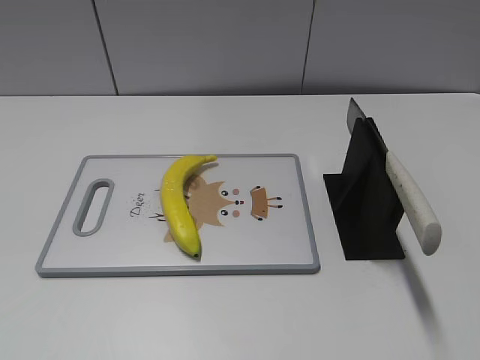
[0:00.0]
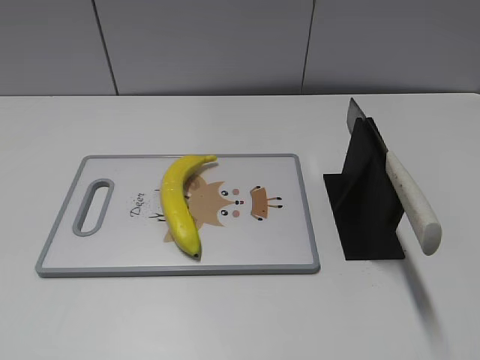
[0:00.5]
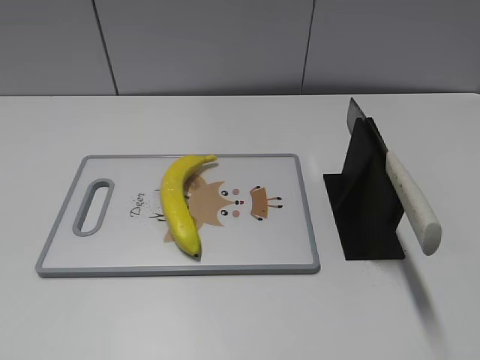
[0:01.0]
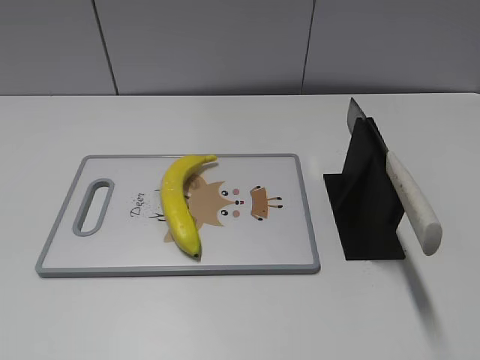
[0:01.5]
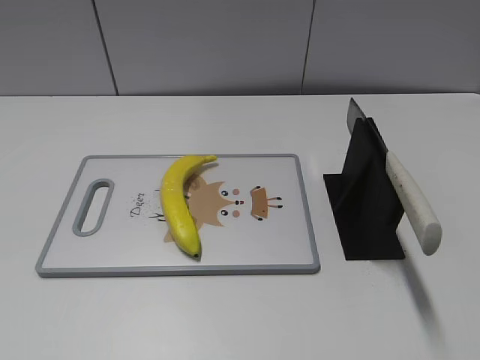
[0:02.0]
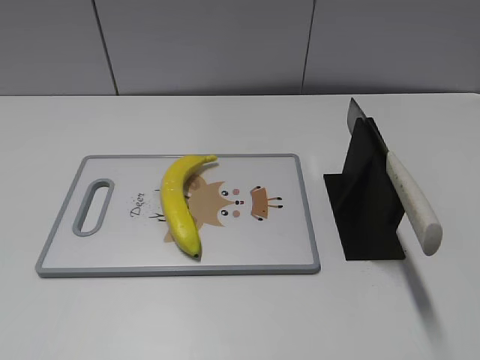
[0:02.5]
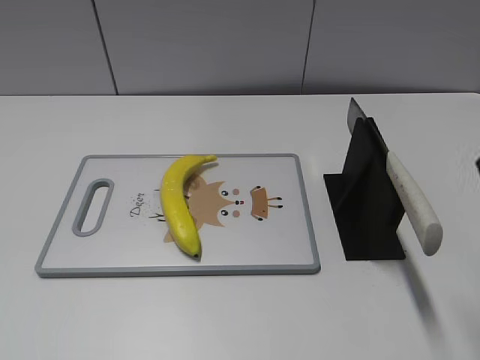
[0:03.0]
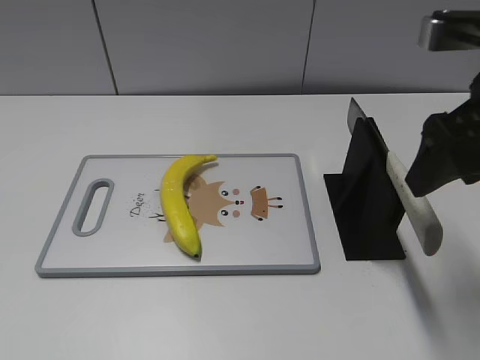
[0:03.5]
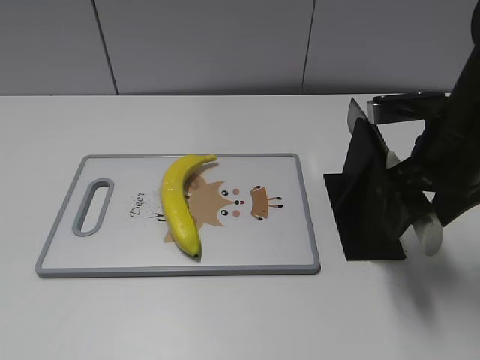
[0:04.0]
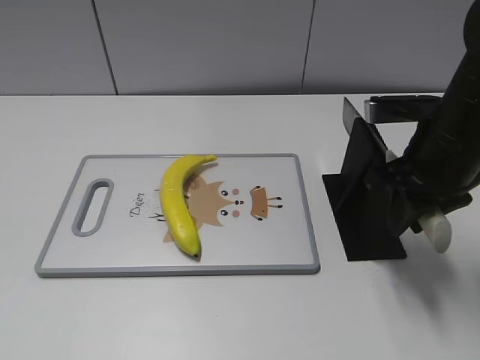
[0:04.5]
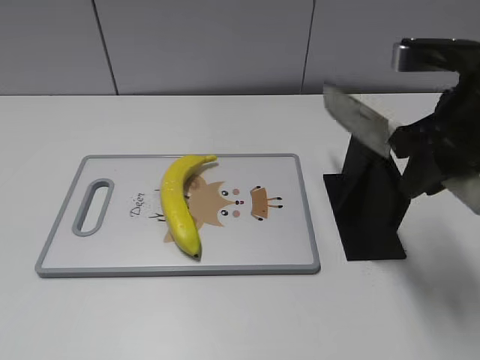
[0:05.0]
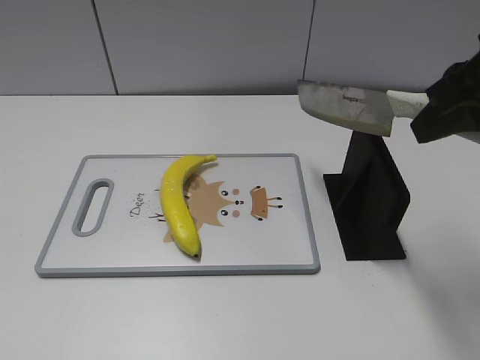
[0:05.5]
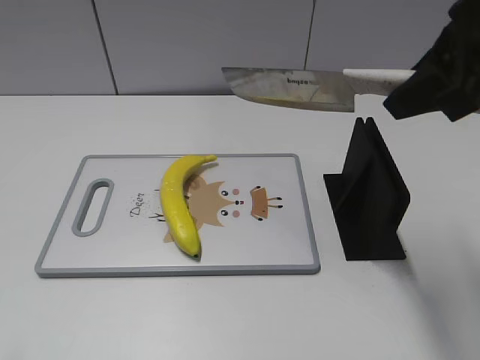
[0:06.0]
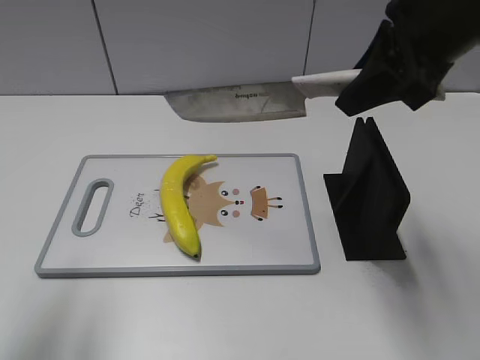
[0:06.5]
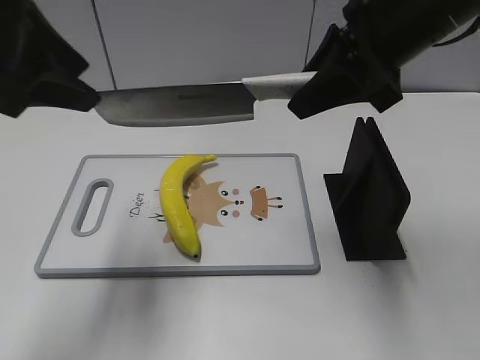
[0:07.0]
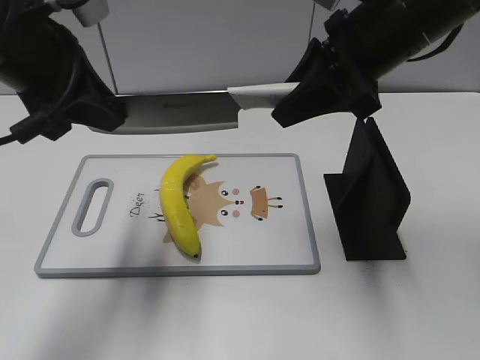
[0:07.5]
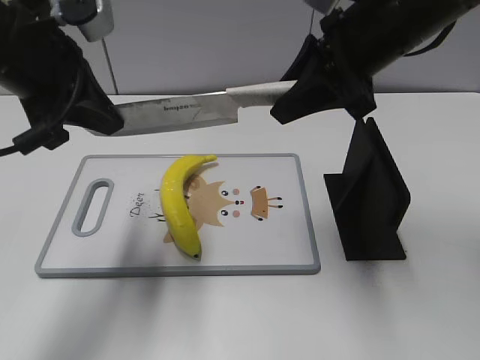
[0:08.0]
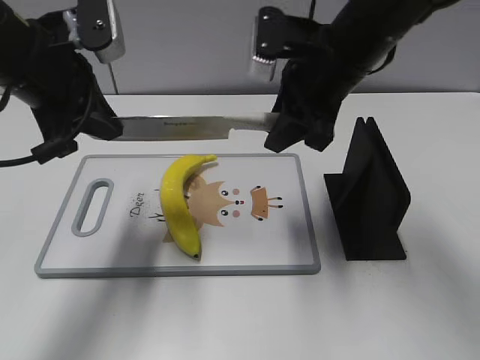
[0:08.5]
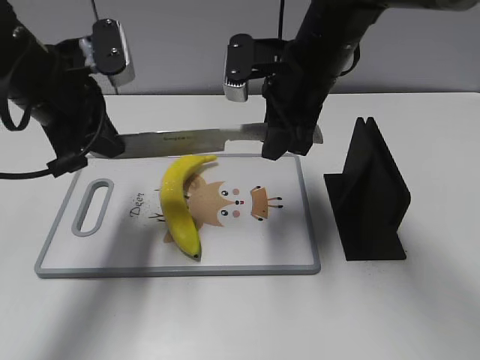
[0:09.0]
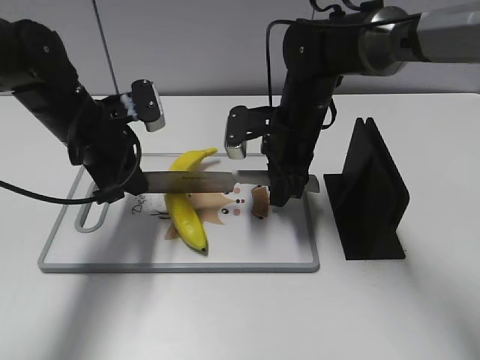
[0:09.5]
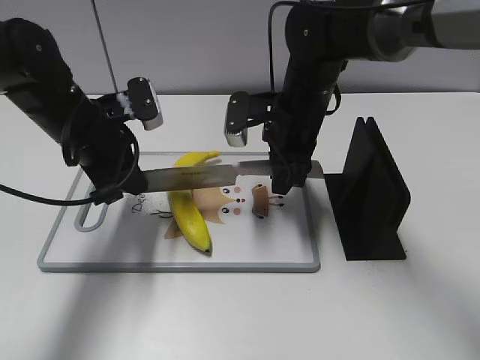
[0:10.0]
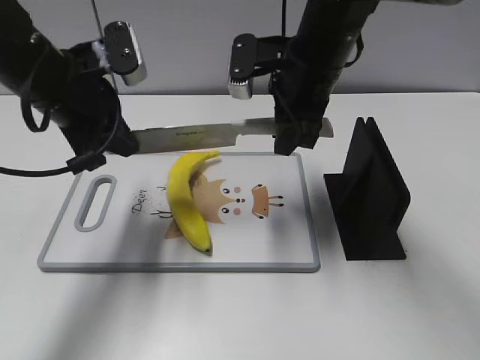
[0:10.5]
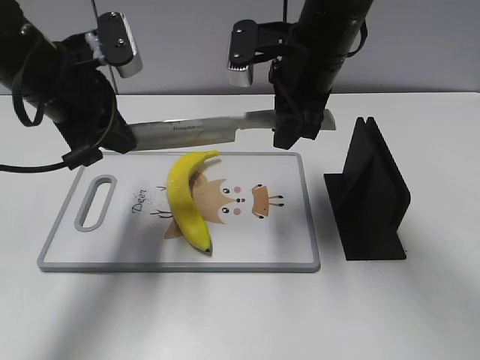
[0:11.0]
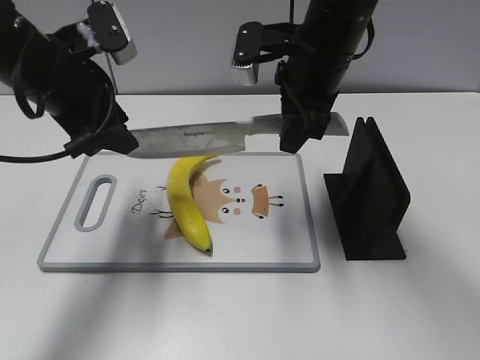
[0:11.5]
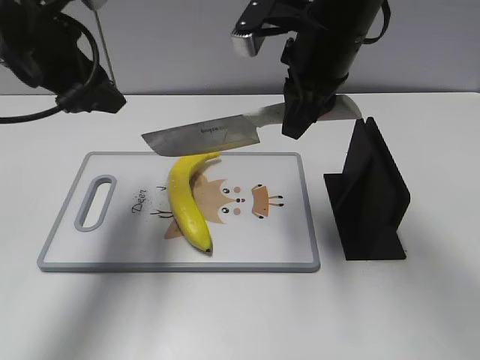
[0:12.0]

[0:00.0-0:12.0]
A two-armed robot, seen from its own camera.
Task of the whole recording: cut plastic banana.
Step, 0:00.0 to 0:05.5: Grab the knife handle with your right hand.
Step, 0:06.0 to 0:09.0: Hold the blade with your left hand.
Step, 0:09.5 to 0:11.5: Cut the banana with your right hand.
0:02.0 to 0:04.0: The right gripper travels forward and downward by some 25 cm.
0:04.0 to 0:06.0: The right gripper is displaced upward by roughly 15 cm, and closes. Meanwhile the left gripper moves about 5 cm.
0:06.0 to 0:08.0: The left gripper travels forward and to the right by about 30 cm, and closes up; the right gripper goes about 10 cm forward, to the left and downward.
0:08.0 to 0:10.0: The left gripper travels downward and forward by some 15 cm; the right gripper goes approximately 15 cm downward, to the left and forward.
0:10.0 to 0:12.0: Both grippers move upward, about 10 cm. The left gripper opens.

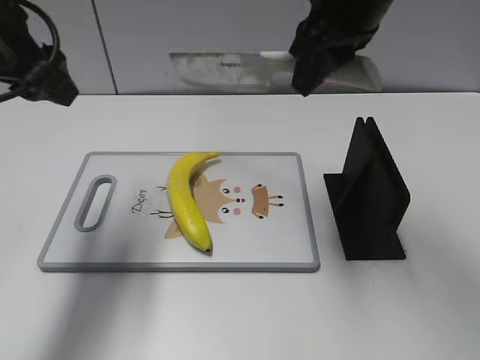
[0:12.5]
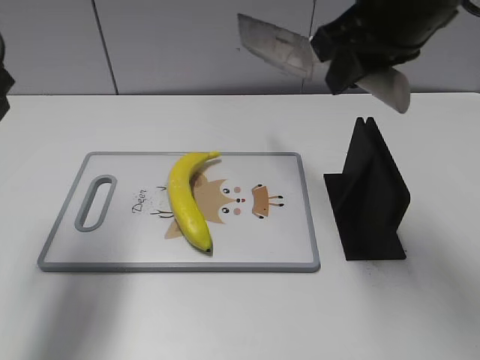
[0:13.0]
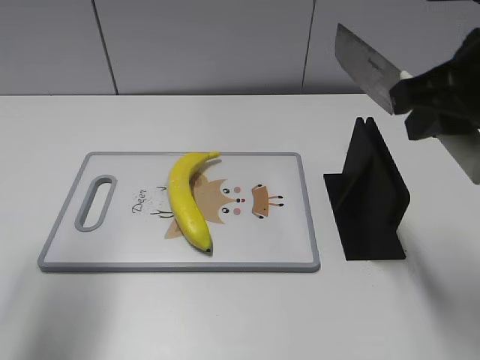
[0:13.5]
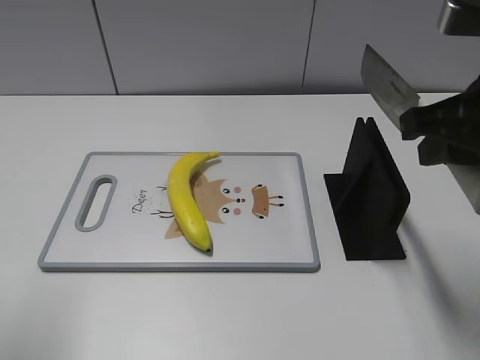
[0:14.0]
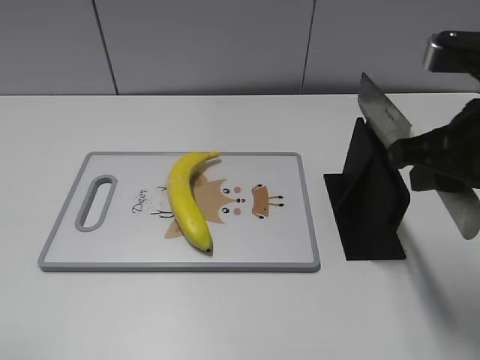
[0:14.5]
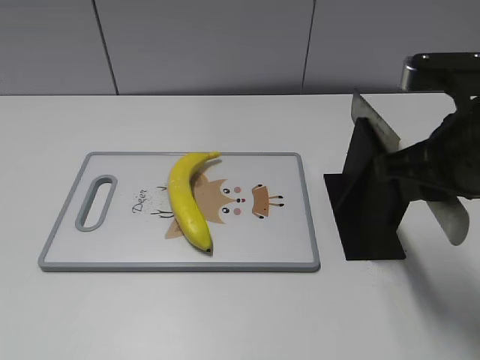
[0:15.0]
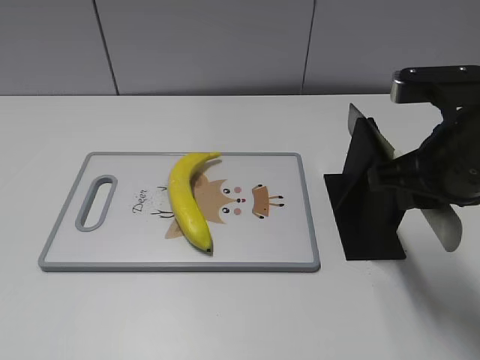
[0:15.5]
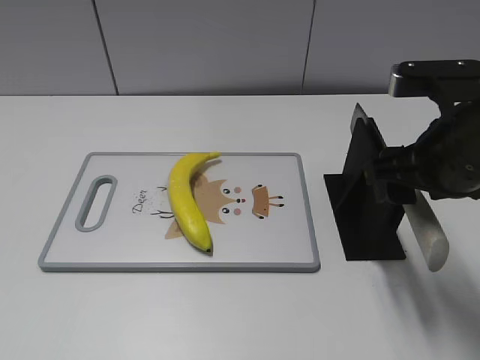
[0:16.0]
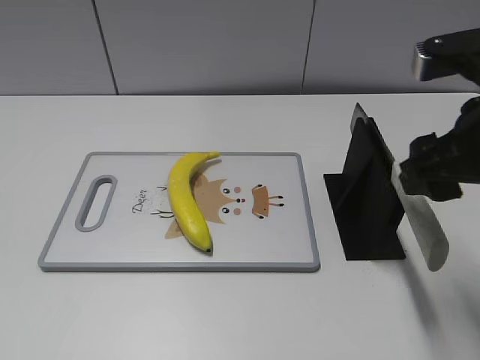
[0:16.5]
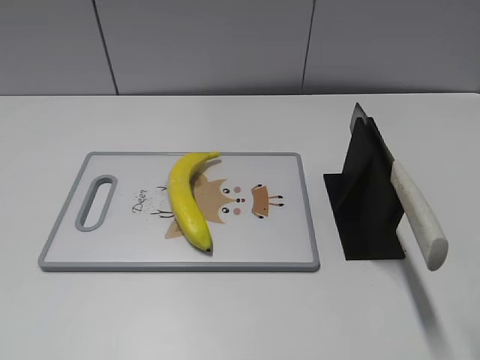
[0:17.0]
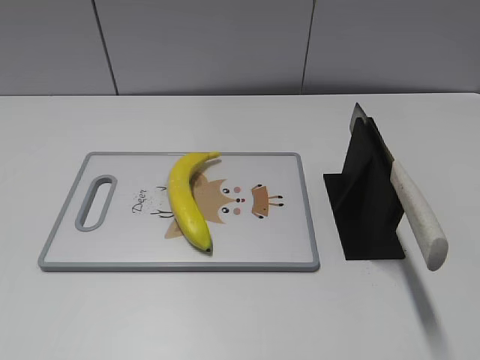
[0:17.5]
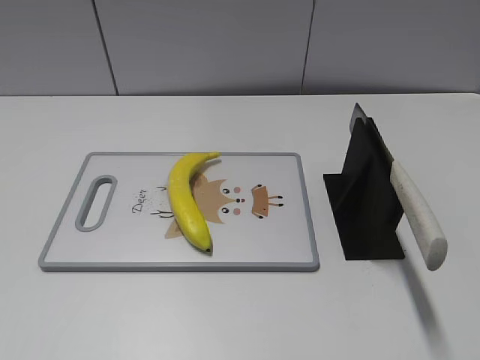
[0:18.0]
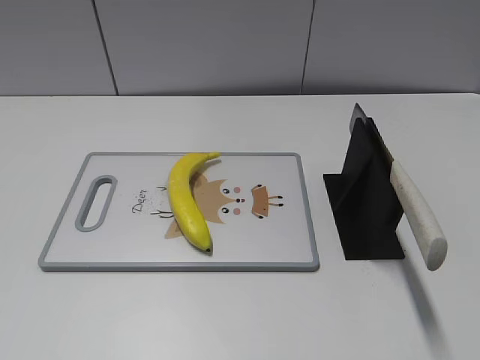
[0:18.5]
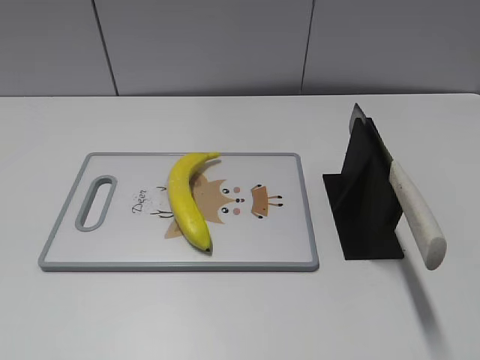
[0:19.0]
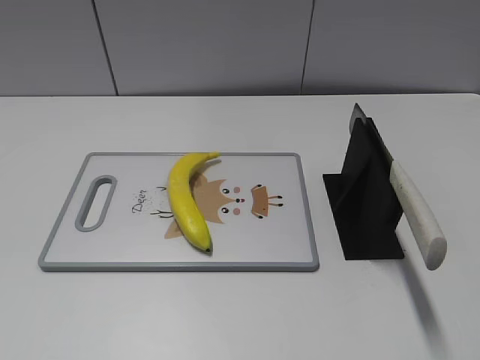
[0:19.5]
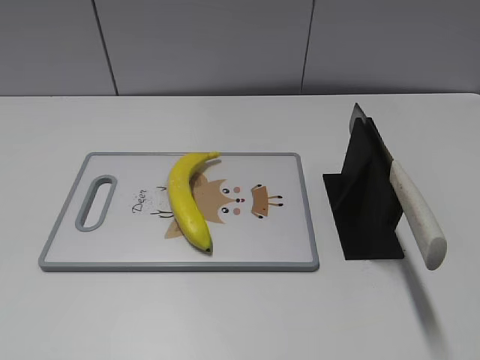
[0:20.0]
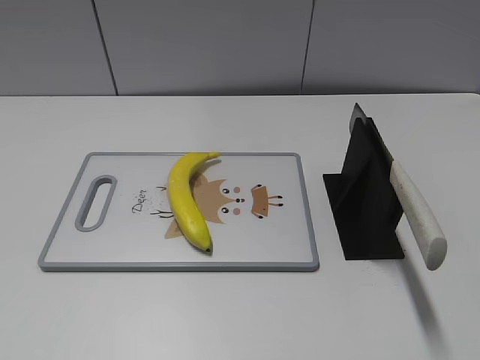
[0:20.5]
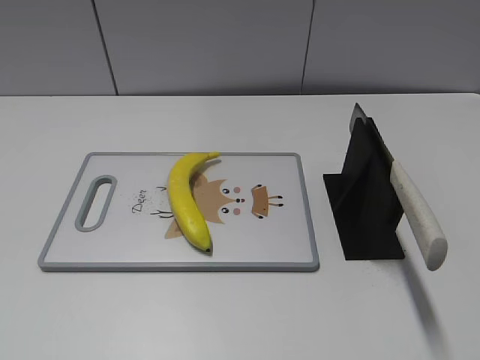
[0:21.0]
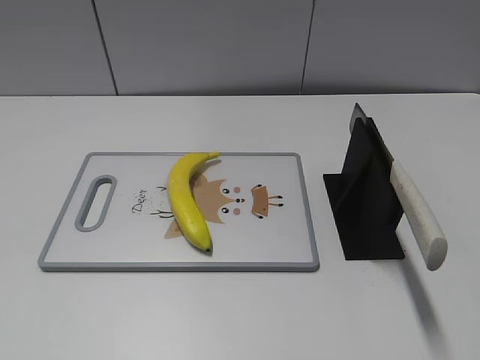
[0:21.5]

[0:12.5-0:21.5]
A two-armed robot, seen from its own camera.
Task of the whole recording: cut plastic banana.
Step, 0:12.5 to 0:13.5: Secure the blade with your left hand.
Step, 0:14.0 to 0:19.5: Place the knife on the storage rack with your right hand.
0:12.5 to 0:14.5: The left gripper heads backward, covering about 20 cm; the right gripper travels backward, to the right and downward by some 15 cm.
0:14.5 to 0:17.0: The right gripper shifts roughly 10 cm backward, and opens its fingers.

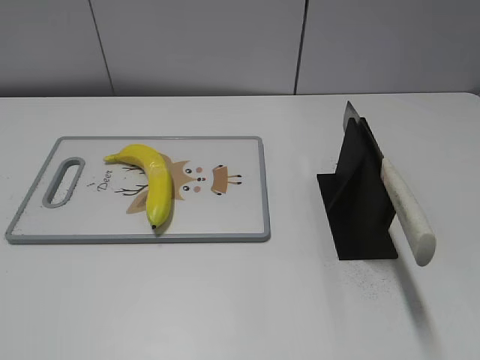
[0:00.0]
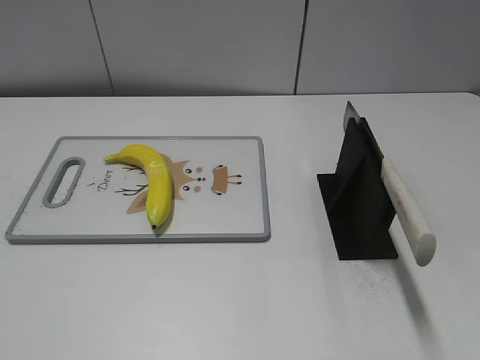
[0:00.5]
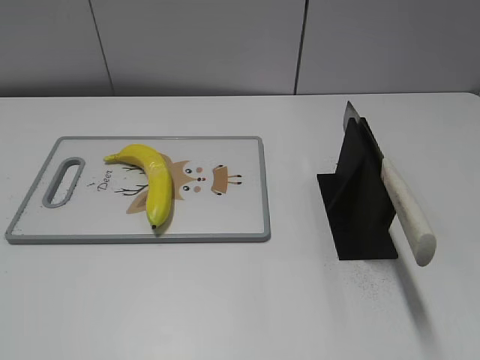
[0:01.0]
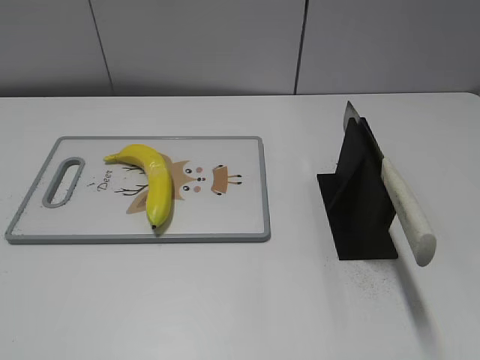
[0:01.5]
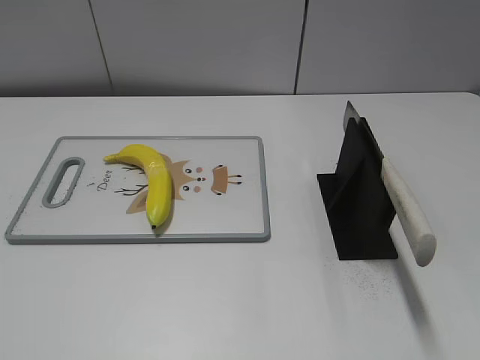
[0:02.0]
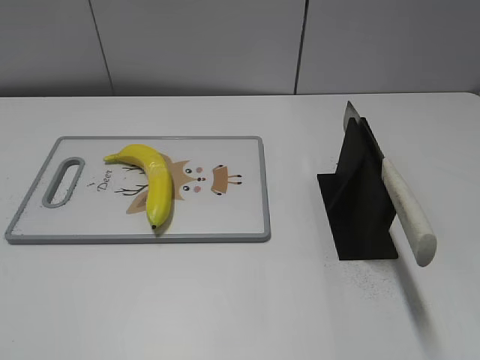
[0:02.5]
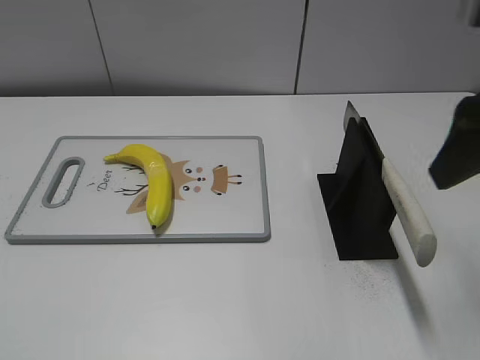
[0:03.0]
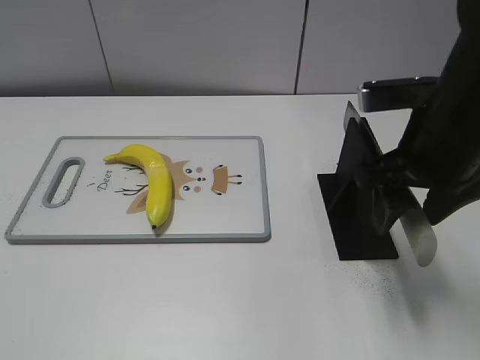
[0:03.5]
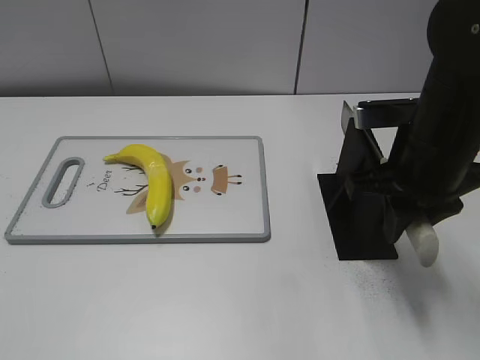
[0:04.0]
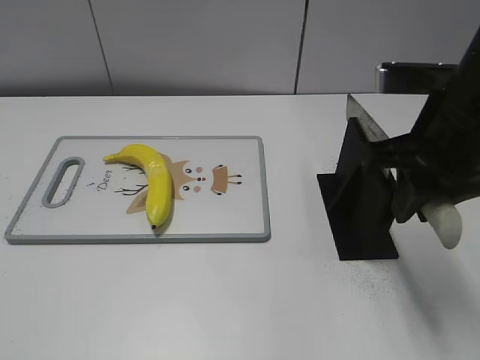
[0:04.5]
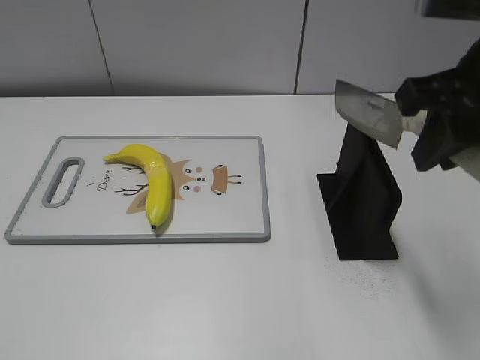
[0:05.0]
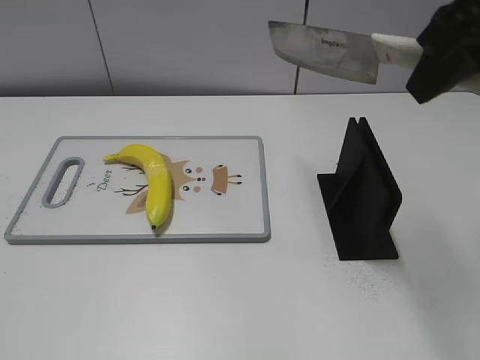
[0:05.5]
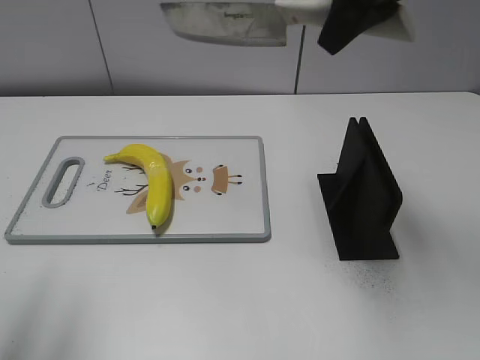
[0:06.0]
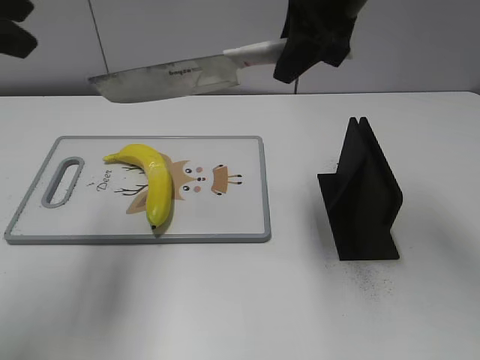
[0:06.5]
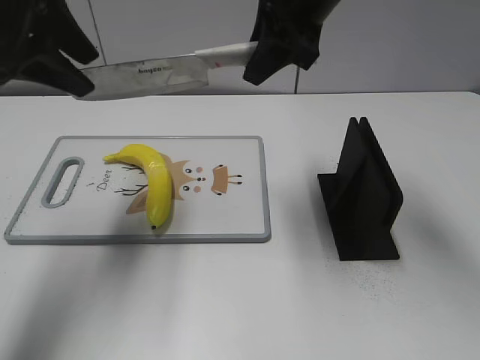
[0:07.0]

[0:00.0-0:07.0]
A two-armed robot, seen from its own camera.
Task of the whole recording: cut plastic banana.
Step, 0:00.0 to 0:04.5: Grab the knife handle with your right hand.
0:02.0 to 0:03.5: The right gripper travels forward and to the left by approximately 25 cm.
0:03.5 to 0:05.0: The right gripper heads upward, covering some 10 cm, and closes its fingers.
0:05.0 to 0:07.0: The left gripper moves forward, some 35 cm; the right gripper is displaced forward and to the left by some 20 cm.
